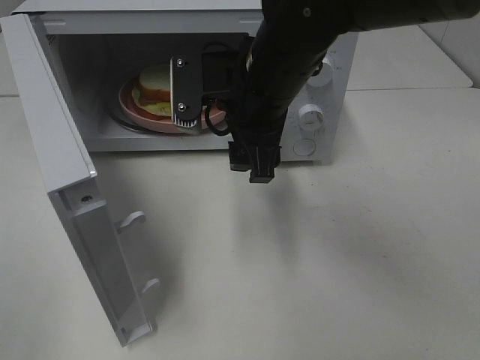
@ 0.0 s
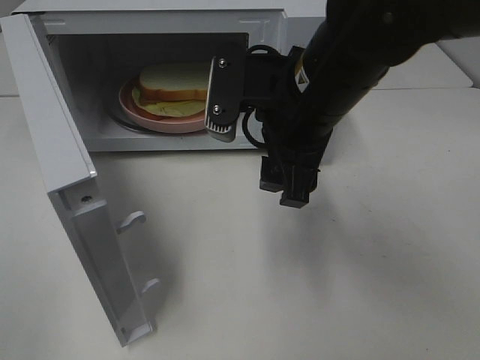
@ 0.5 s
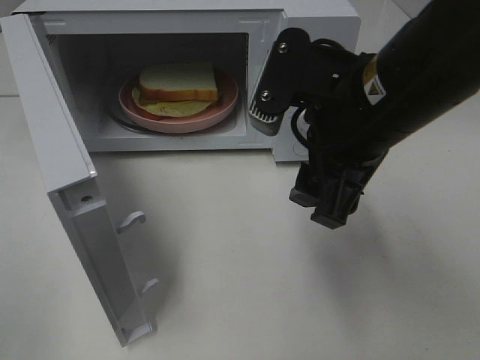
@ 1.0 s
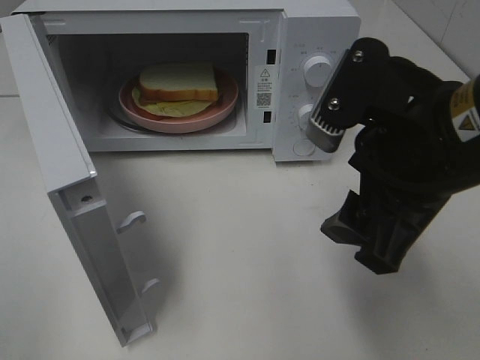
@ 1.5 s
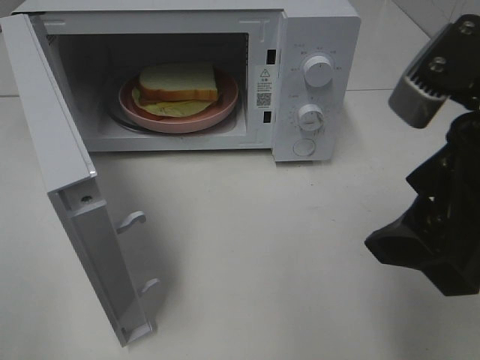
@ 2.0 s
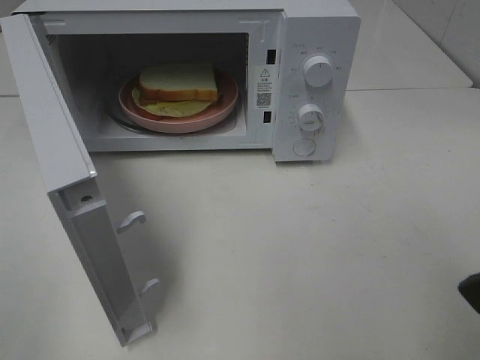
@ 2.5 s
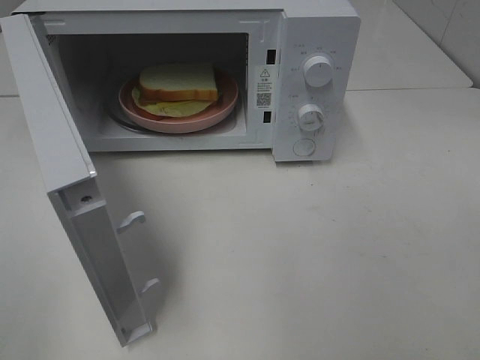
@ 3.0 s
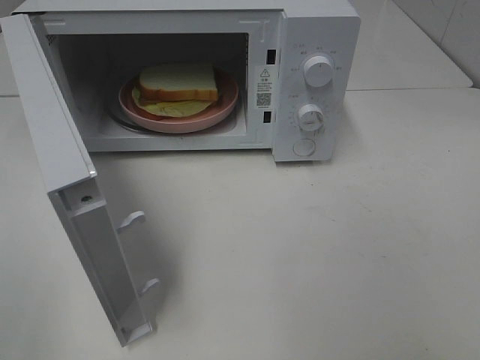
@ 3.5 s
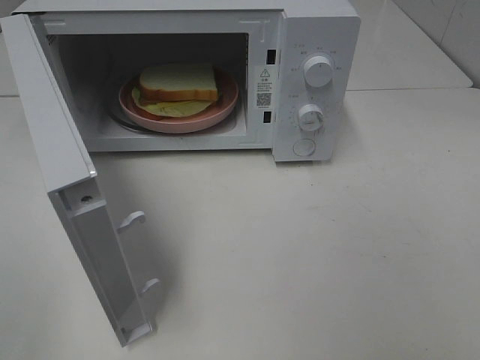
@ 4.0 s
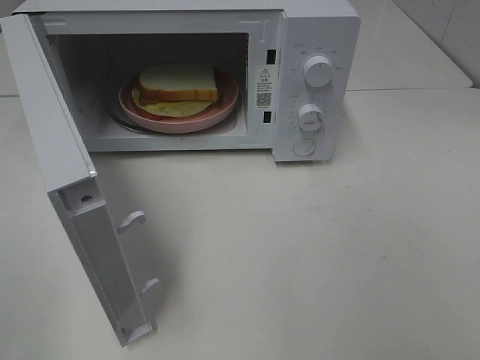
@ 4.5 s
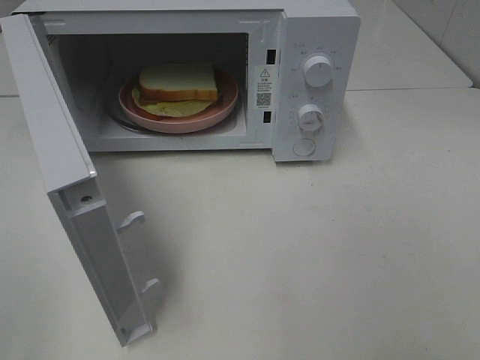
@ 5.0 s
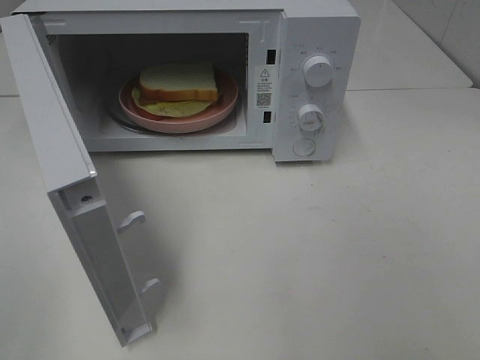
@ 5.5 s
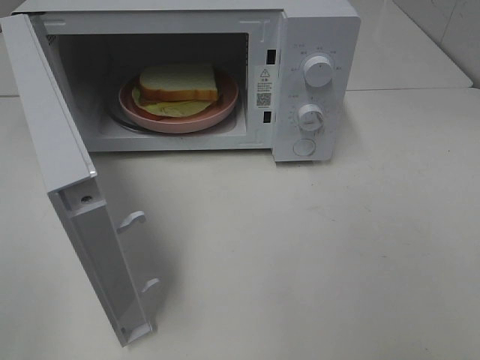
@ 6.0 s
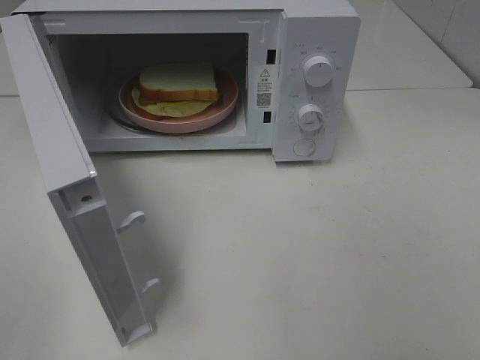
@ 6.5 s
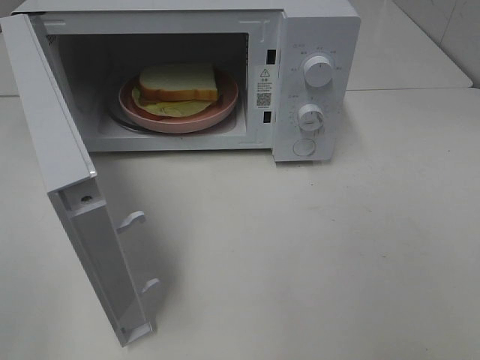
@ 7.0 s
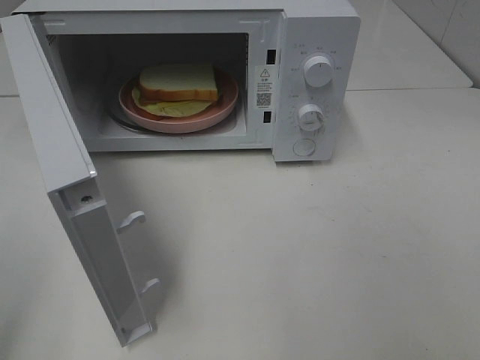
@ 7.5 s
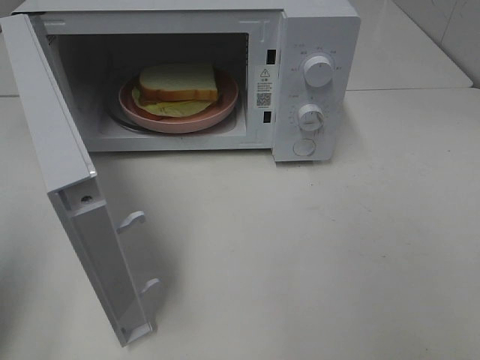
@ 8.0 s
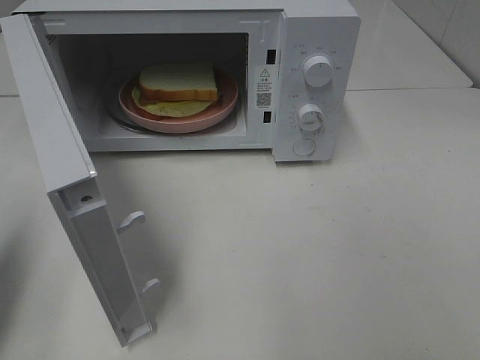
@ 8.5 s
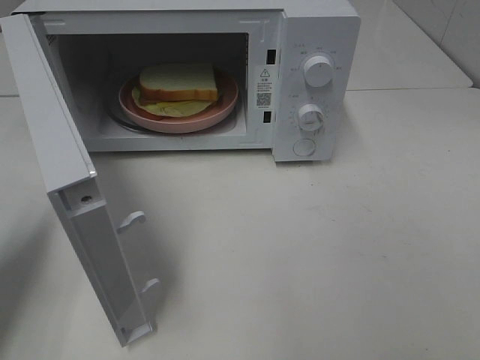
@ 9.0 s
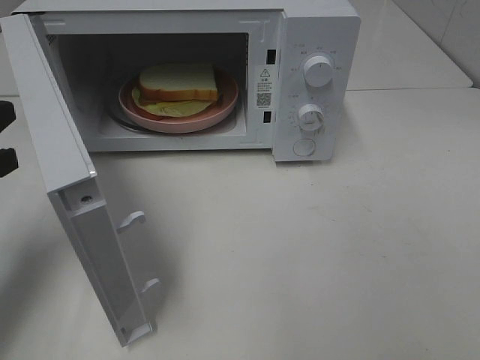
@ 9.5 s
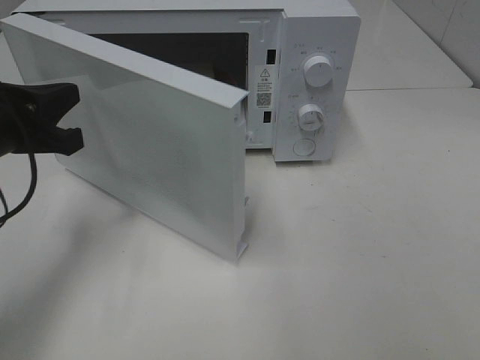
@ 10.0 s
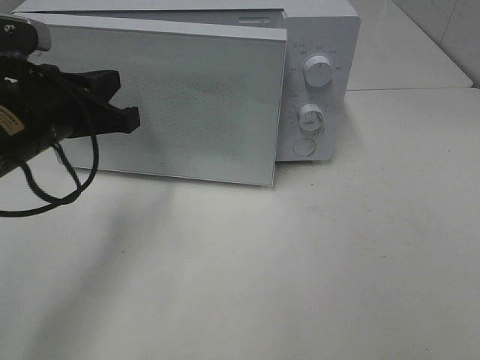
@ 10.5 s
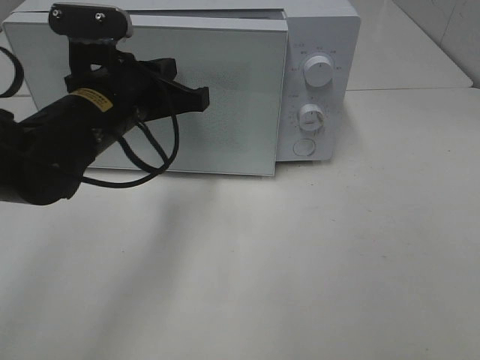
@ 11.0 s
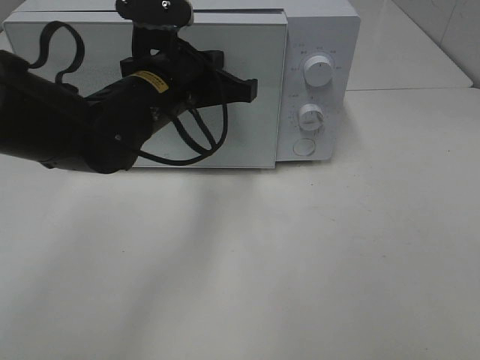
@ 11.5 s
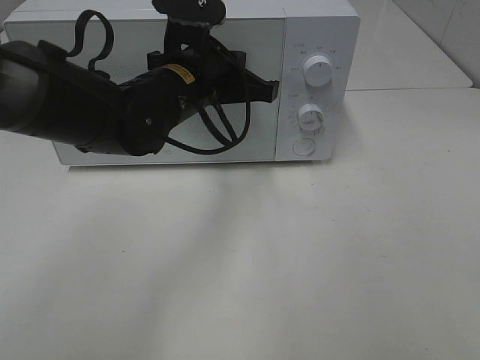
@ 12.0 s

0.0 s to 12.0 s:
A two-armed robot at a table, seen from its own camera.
Task of the whole recording: Heat Sandwich.
0.0 to 2.0 s: The right gripper moves backward and to the right, about 20 cm.
2.0 to 4.0 s: The right gripper travels backward and to the right by about 15 cm.
6.0 to 8.0 s: The left gripper goes some 10 cm forward, and closes.
8.0 to 10.0 s: The left gripper goes about 20 cm forward, to the right and downward.
10.0 to 12.0 s: The left gripper shifts approximately 20 cm to the right and forward.

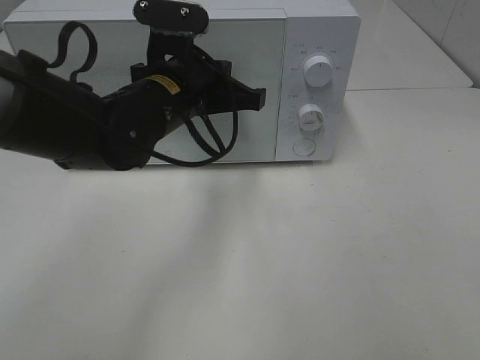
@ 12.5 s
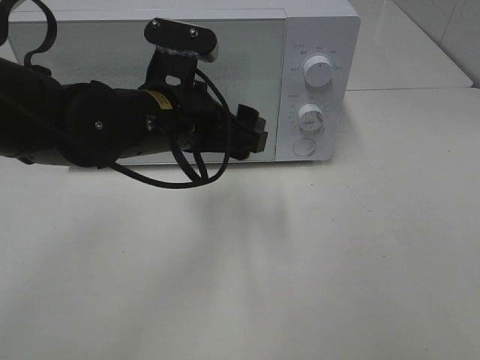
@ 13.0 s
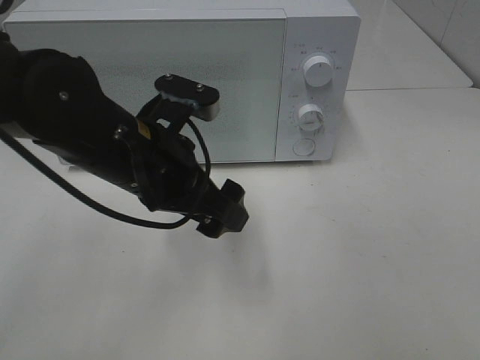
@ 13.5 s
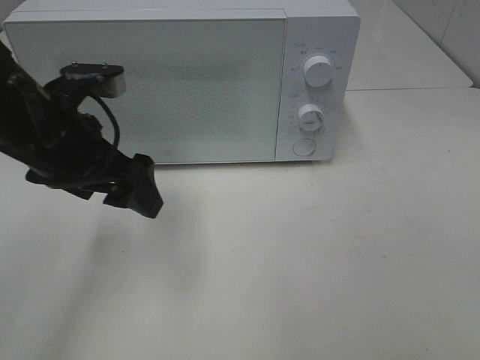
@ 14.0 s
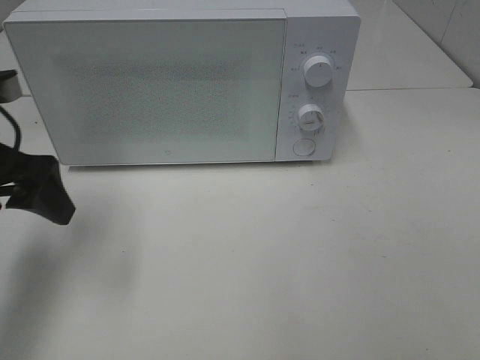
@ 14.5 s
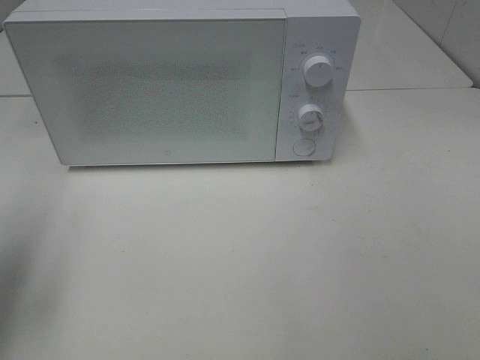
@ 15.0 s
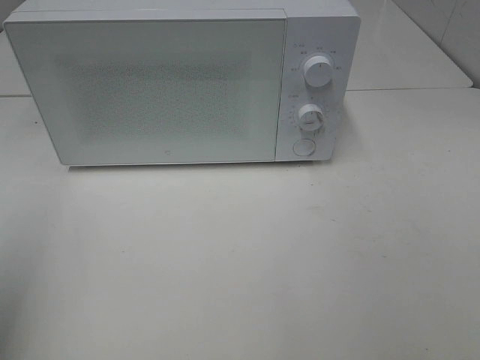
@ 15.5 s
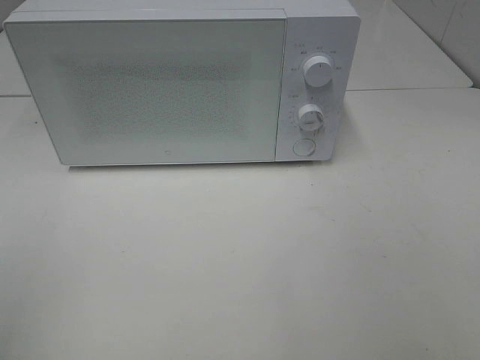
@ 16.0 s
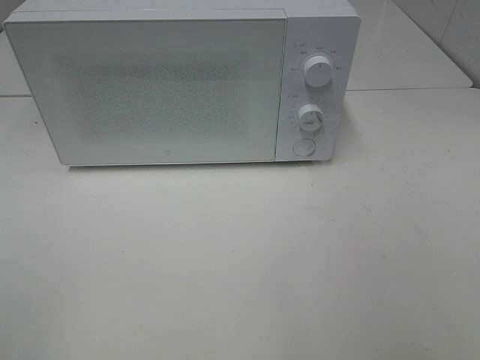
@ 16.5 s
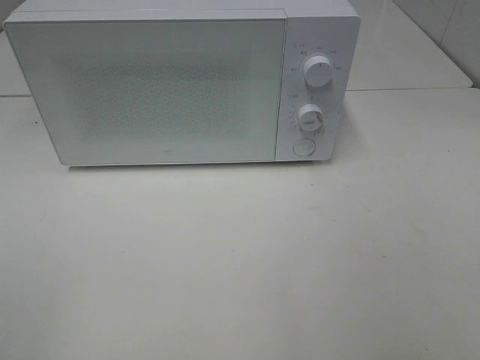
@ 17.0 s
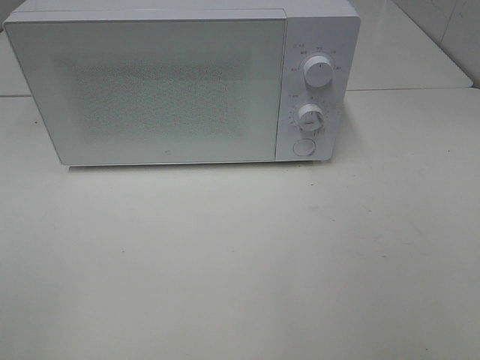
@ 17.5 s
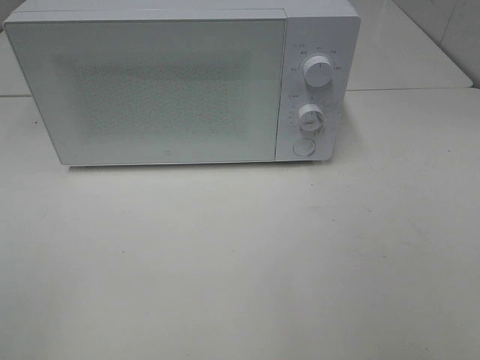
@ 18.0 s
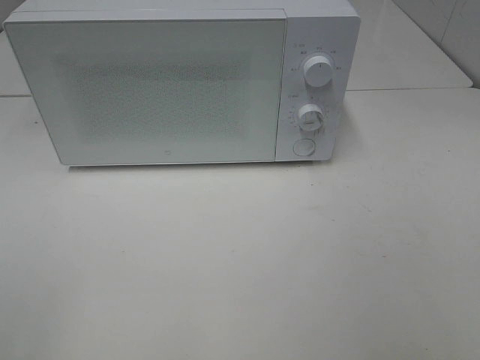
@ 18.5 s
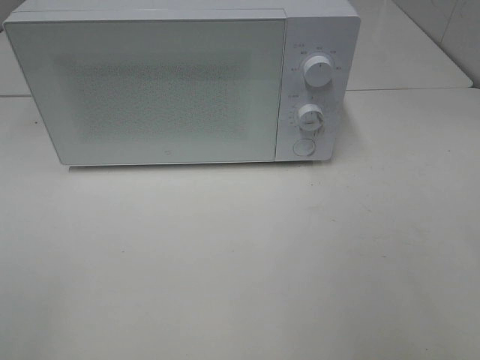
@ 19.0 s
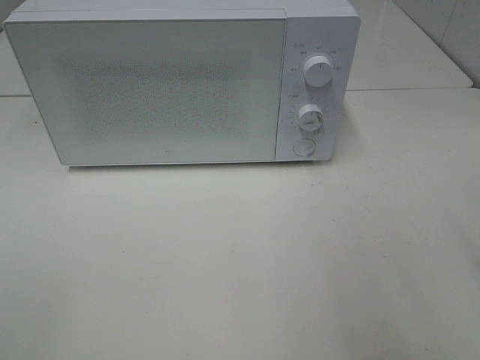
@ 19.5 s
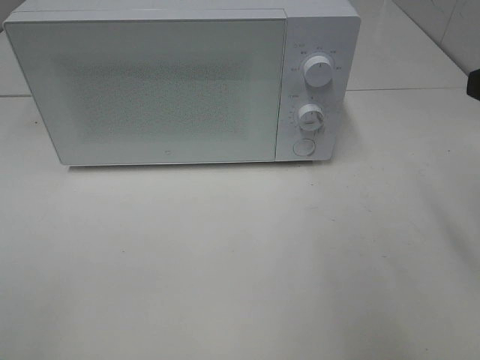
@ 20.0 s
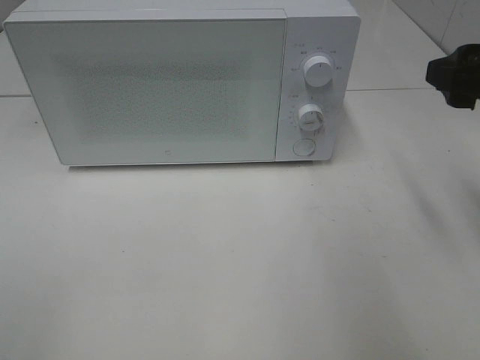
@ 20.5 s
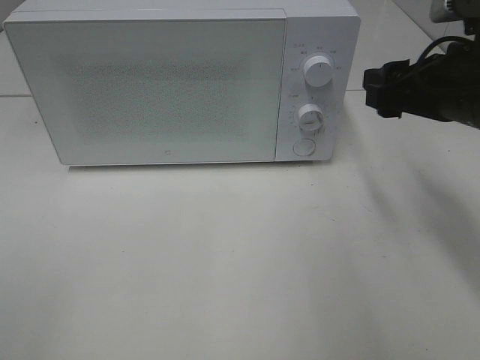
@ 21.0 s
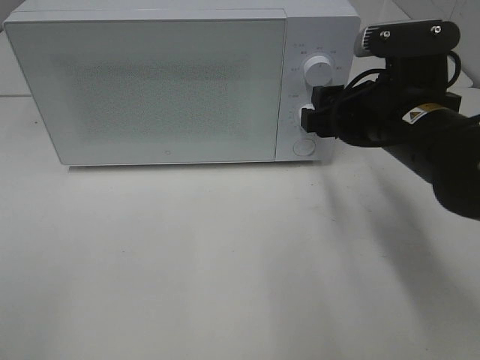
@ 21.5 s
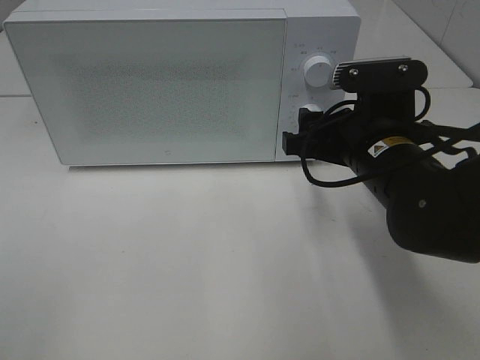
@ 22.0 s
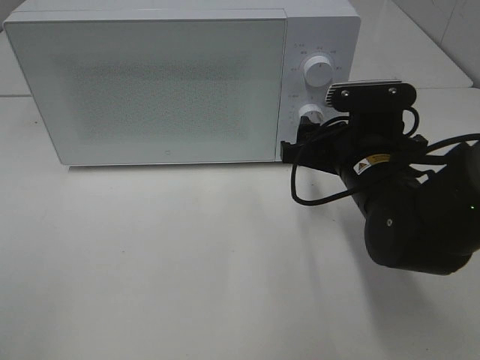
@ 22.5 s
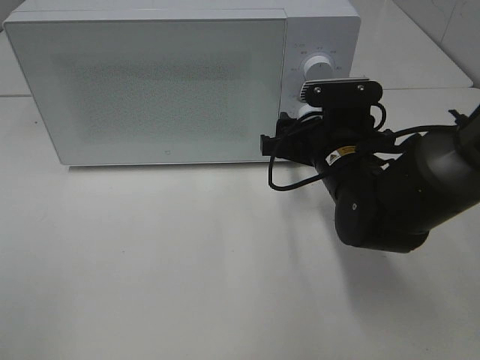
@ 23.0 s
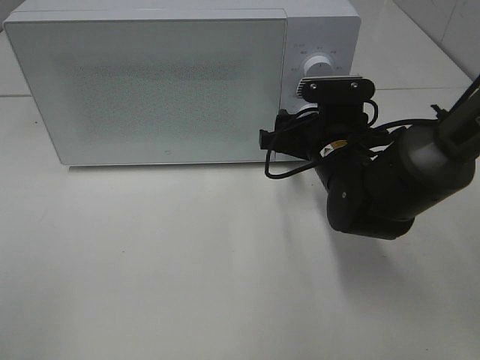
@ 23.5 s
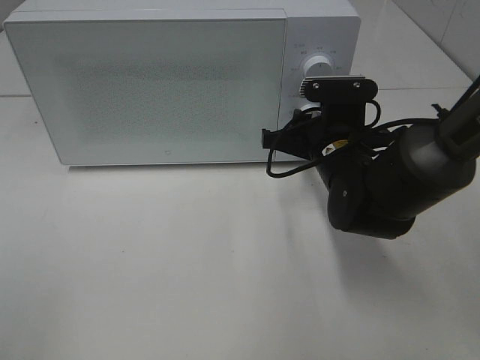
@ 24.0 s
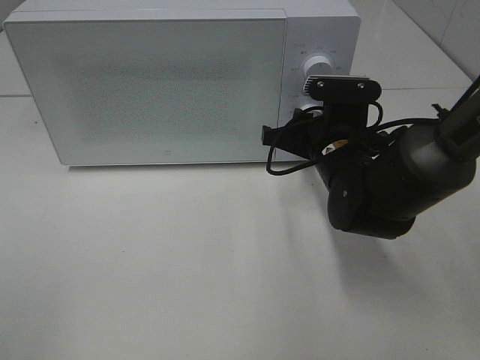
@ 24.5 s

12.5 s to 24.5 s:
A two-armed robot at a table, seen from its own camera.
Task of the whole recording: Heat Sandwich.
12.5 to 14.5 s: The left gripper heads to the left, covering approximately 20 cm, and opens its fingers.
14.5 to 16.5 s: The left gripper heads backward, covering roughly 25 cm.
18.5 to 20.5 s: The right gripper shifts some 25 cm forward.
20.5 to 22.5 s: The right gripper moves downward and to the left, approximately 15 cm.
22.5 to 24.5 s: The right gripper heads forward, covering about 5 cm, and closes.

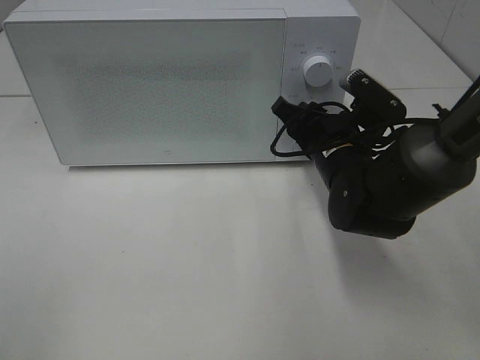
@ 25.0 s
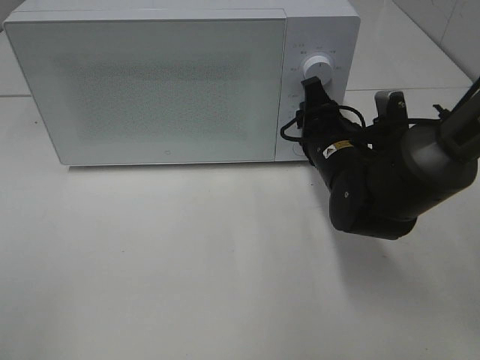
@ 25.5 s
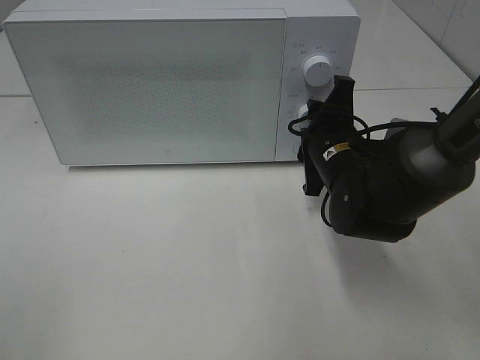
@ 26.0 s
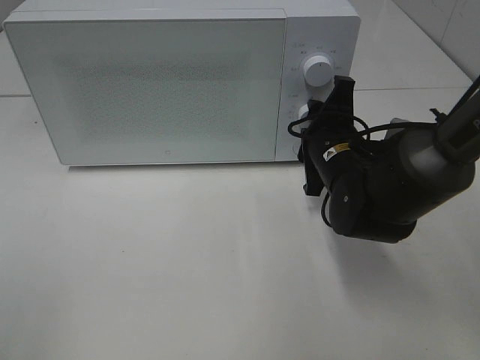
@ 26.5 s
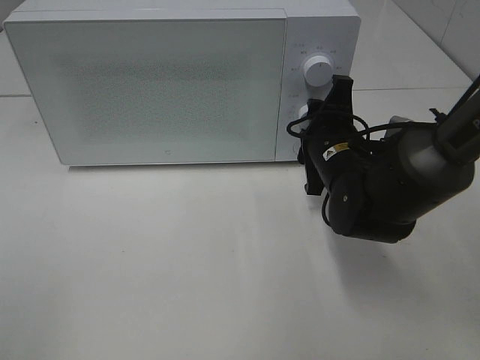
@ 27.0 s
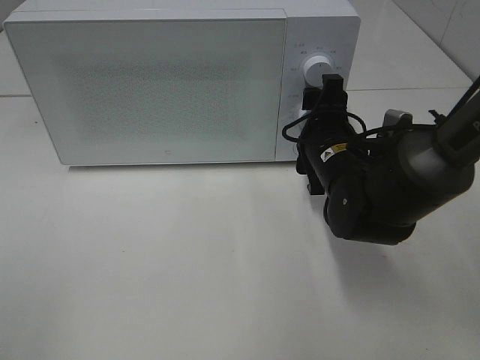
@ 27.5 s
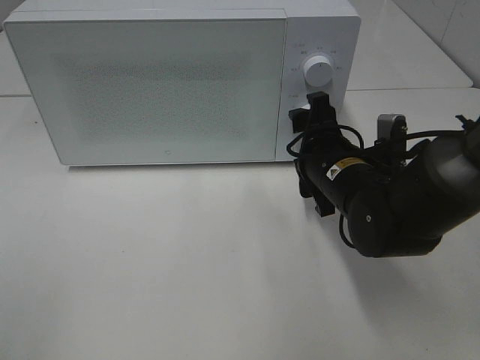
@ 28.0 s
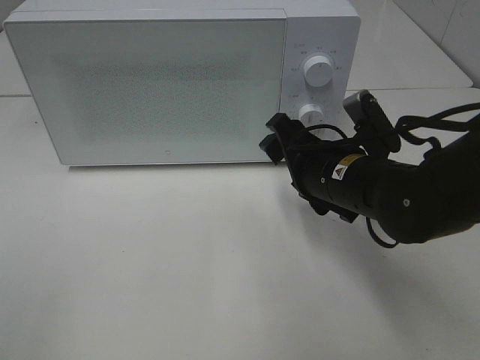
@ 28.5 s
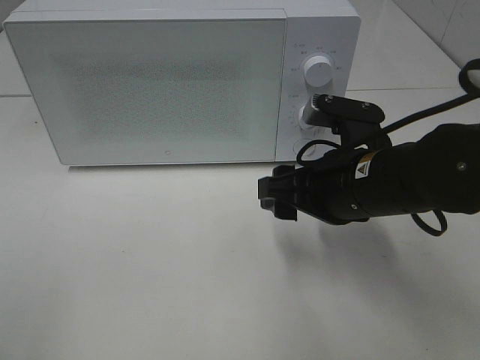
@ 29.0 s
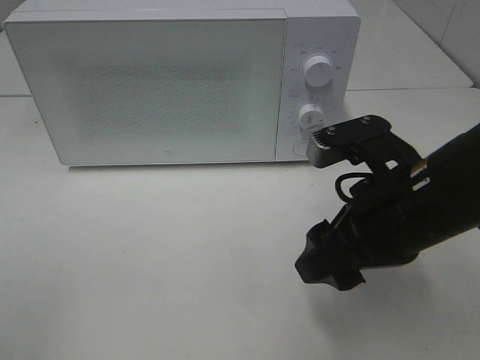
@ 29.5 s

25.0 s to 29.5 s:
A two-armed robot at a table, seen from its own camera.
Task of the whole recording: Heat Sandwich.
Step, 25.0 to 28.0 s: Right hand: twist timer button.
27.0 to 29.5 s: The right gripper heads backward and upward, covering approximately 15 cm.
